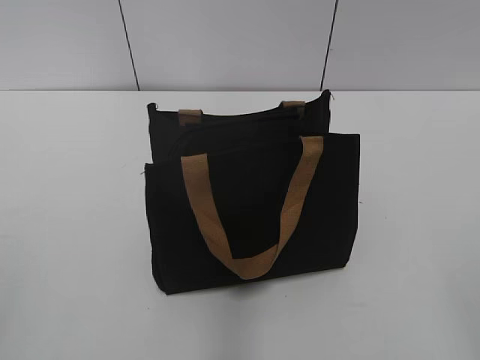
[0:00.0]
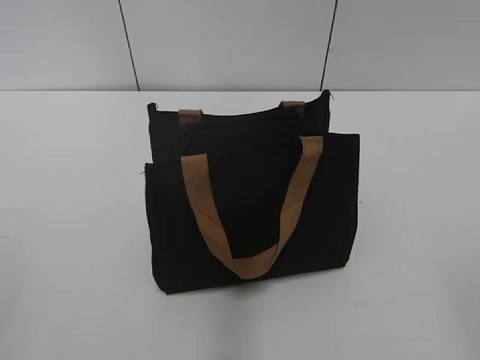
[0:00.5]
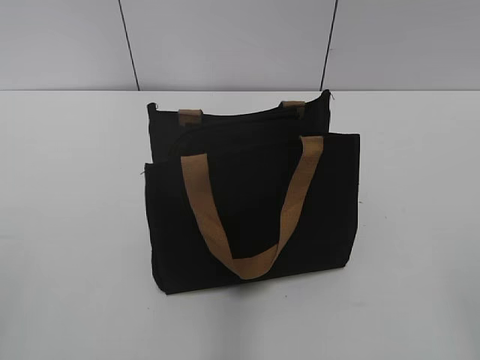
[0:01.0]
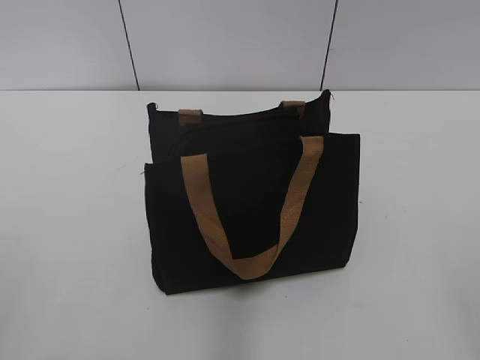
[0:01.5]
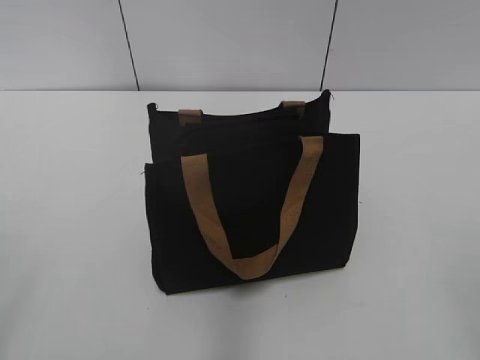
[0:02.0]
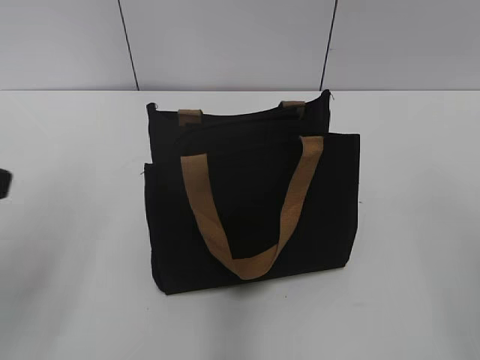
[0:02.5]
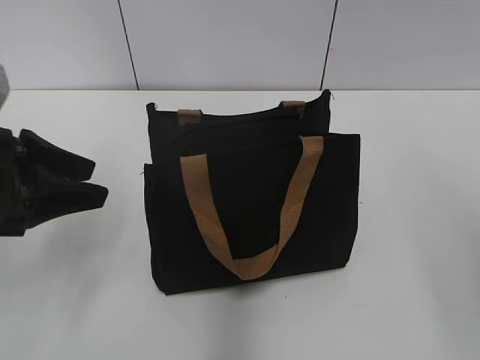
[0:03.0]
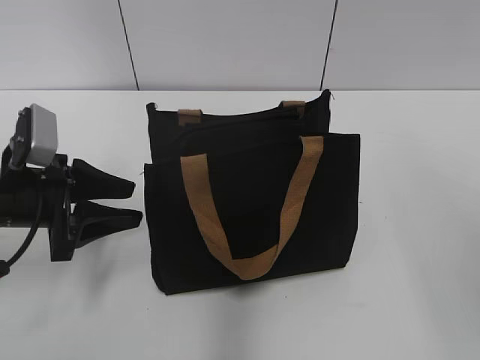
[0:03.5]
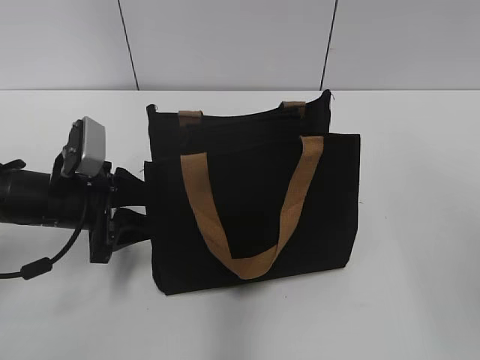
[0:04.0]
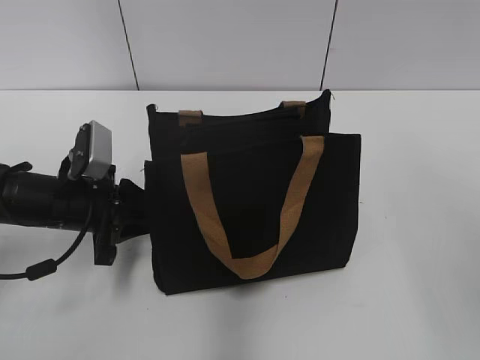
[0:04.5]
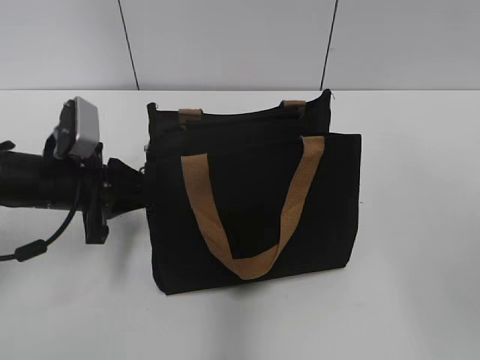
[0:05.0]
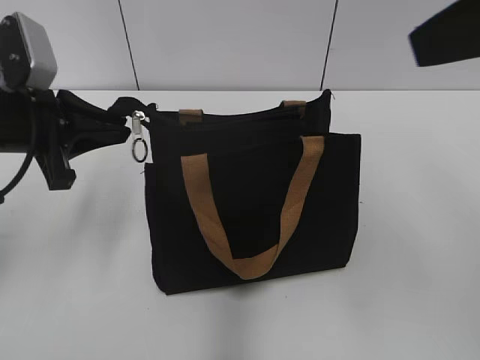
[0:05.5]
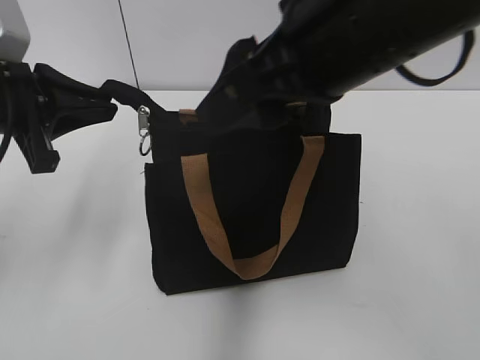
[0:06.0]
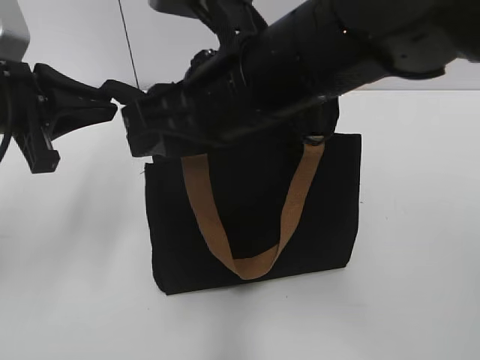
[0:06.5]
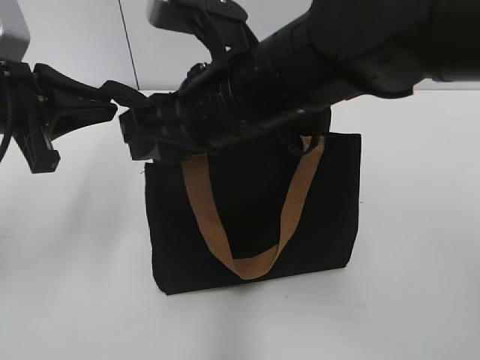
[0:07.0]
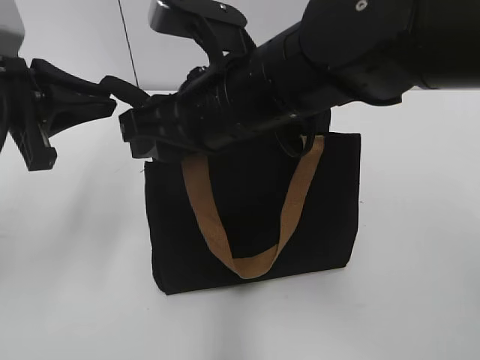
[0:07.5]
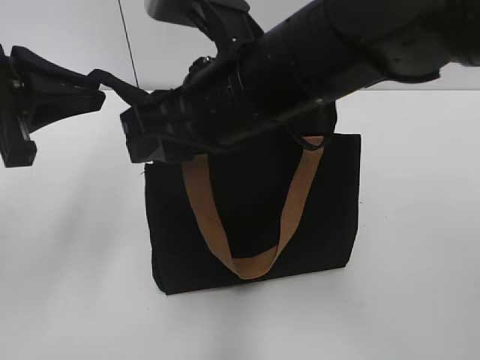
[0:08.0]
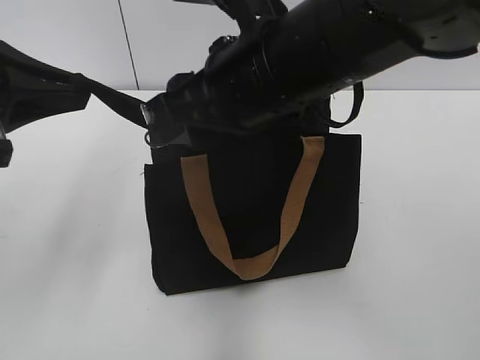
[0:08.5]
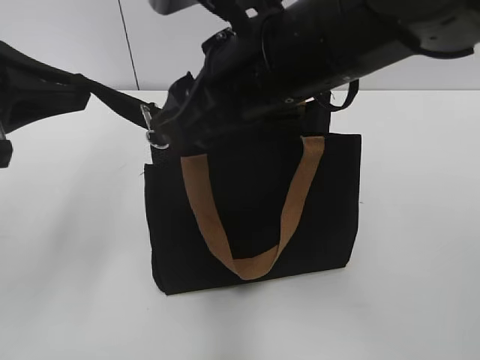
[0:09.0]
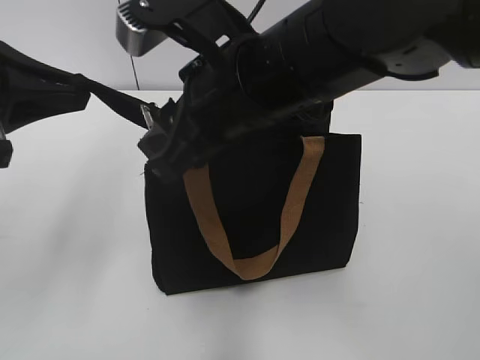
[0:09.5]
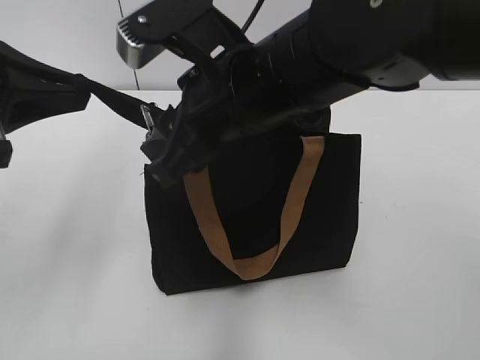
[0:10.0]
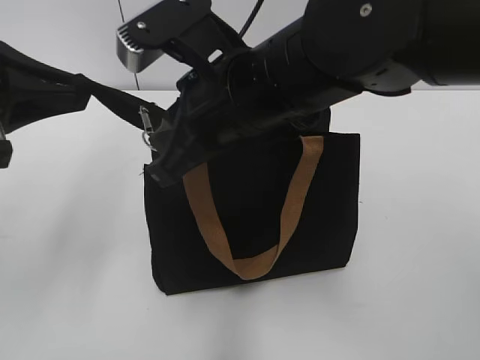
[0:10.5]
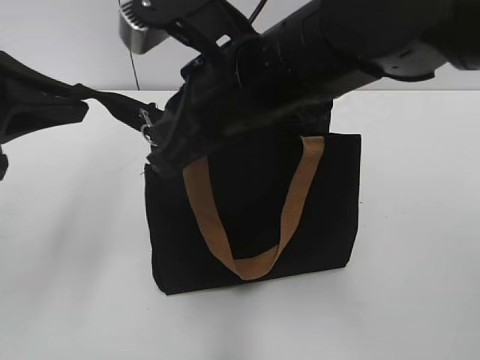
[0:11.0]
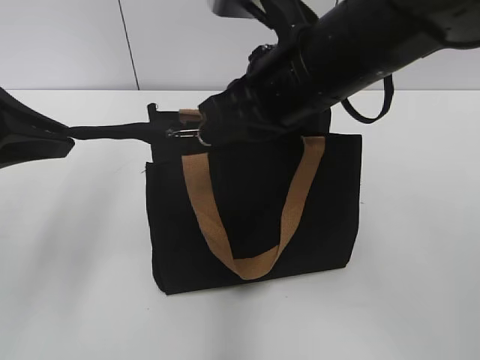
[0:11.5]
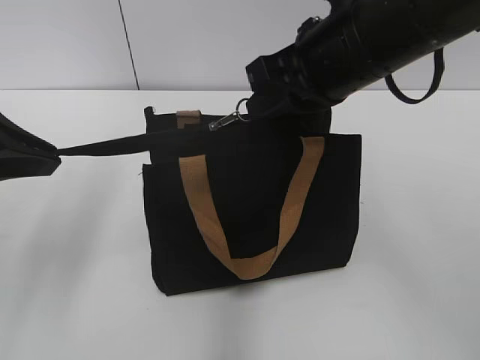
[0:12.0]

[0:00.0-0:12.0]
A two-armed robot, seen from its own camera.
0:02.0 to 0:04.0: The left gripper travels forward and downward by roughly 35 cm.
0:04.0 to 0:06.0: The left gripper travels upward by approximately 15 cm, and closes up; the right gripper shifts about 20 cm to the left and forward.
0:06.0 to 0:08.0: The right gripper moves downward and to the left, approximately 10 cm.
0:10.0 to 0:12.0: The right gripper moves to the right, roughly 10 cm, and closes.

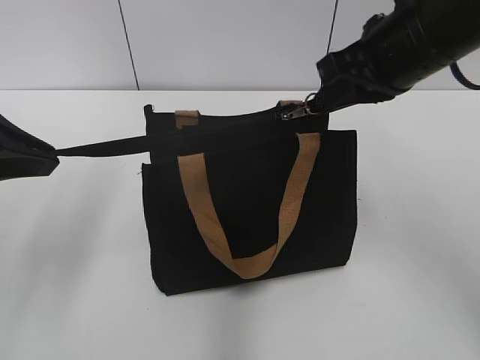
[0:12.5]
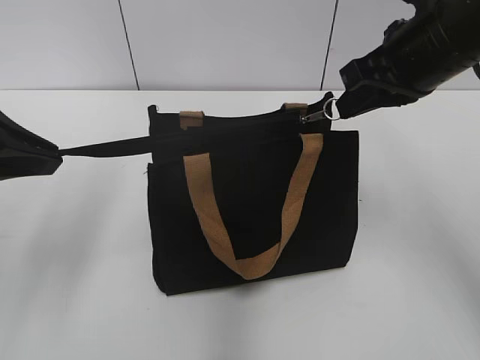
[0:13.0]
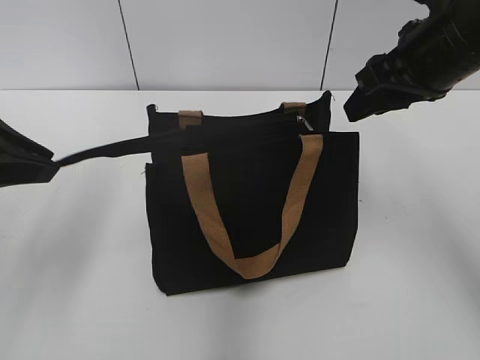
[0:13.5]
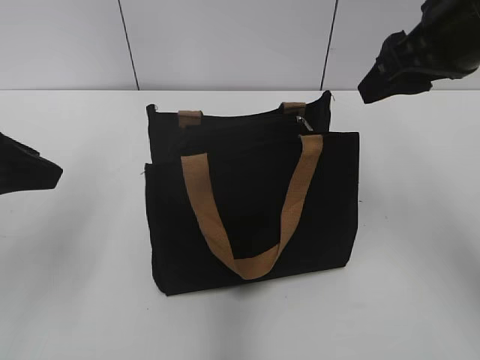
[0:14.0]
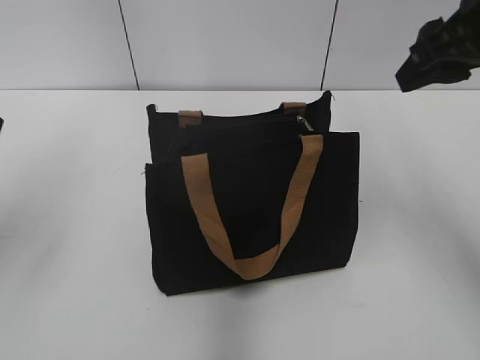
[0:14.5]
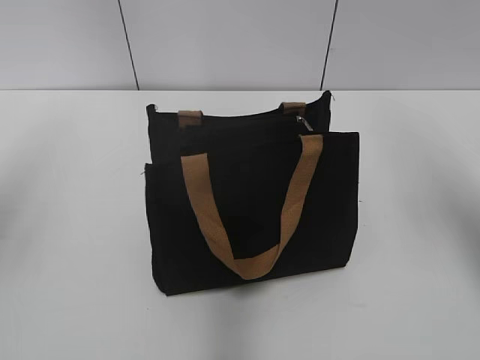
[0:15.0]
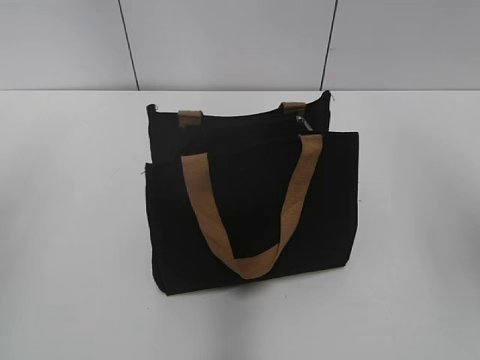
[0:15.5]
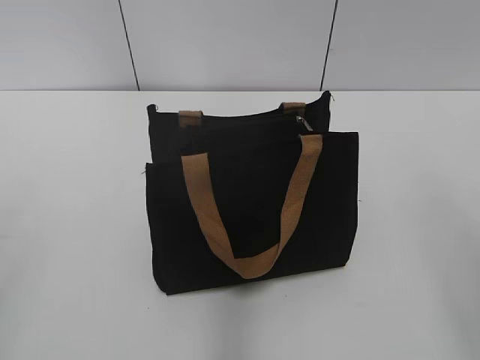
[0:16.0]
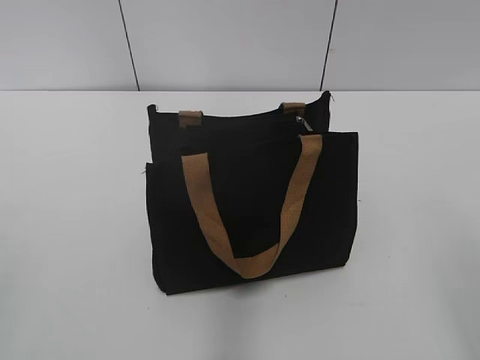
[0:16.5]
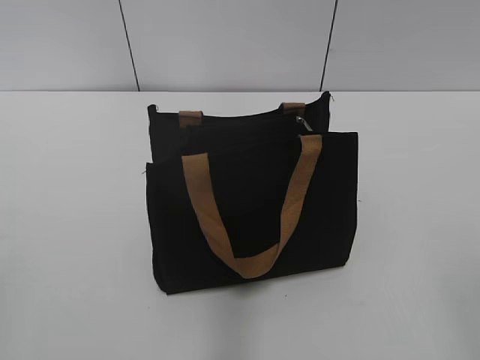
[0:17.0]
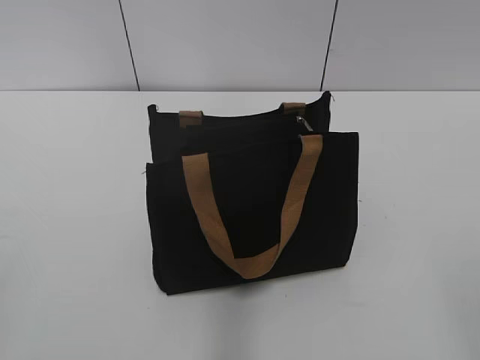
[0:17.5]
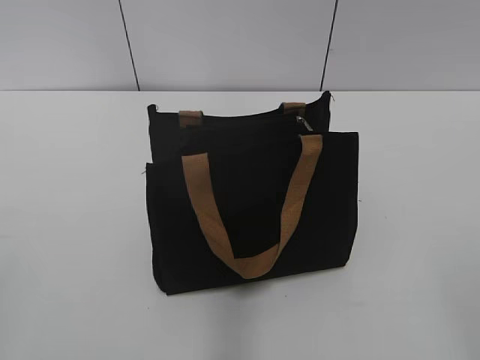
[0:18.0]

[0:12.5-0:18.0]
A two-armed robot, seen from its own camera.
0:12.5 to 0:14.5: The left gripper opens up. Meanwhile the right gripper moves to the right, about 5 cm, and opens up.
0:14.5 to 0:16.0: The right gripper shifts about 15 cm backward.

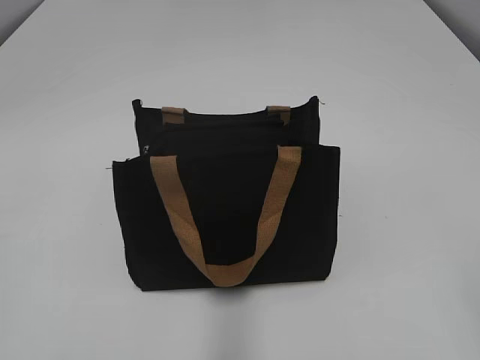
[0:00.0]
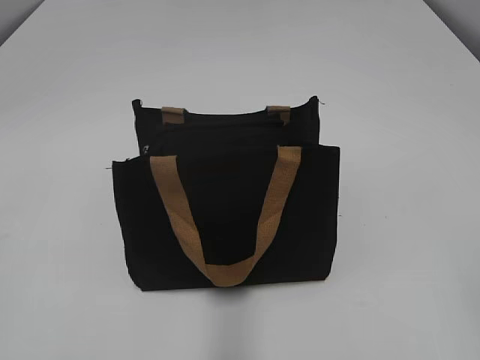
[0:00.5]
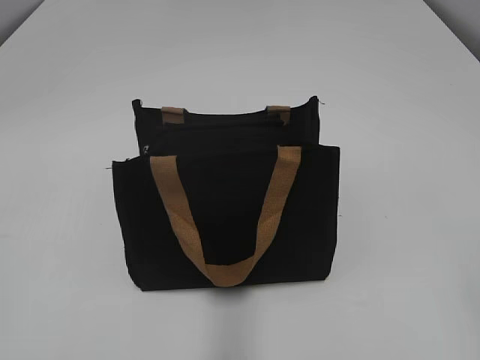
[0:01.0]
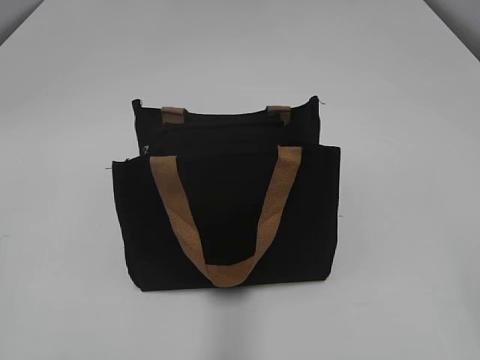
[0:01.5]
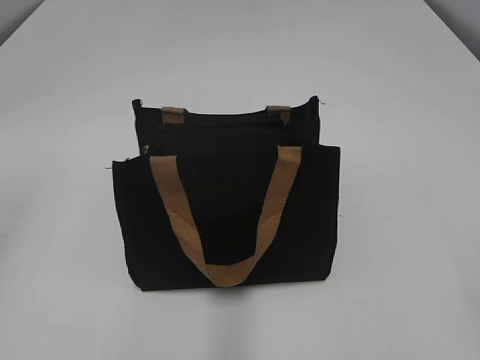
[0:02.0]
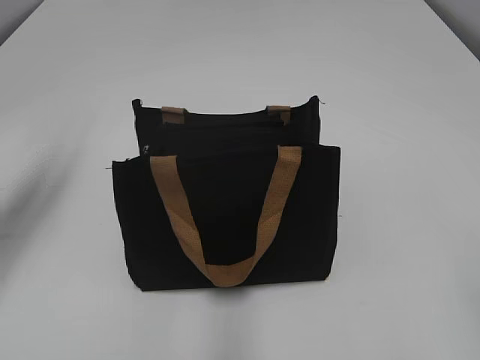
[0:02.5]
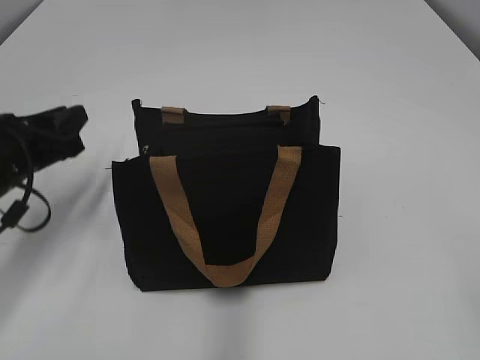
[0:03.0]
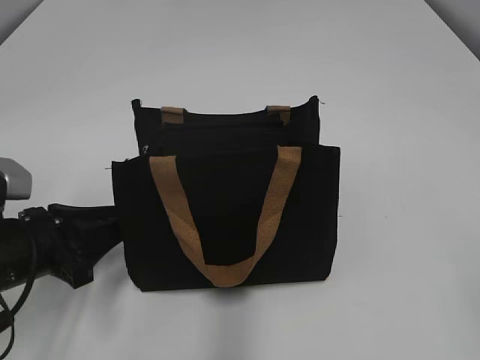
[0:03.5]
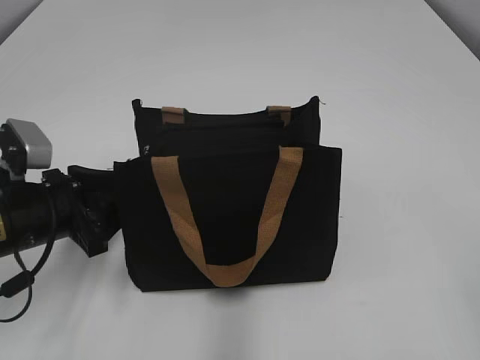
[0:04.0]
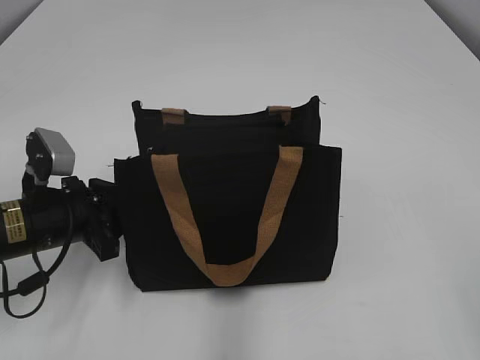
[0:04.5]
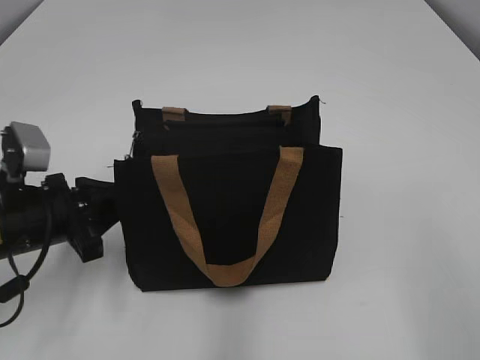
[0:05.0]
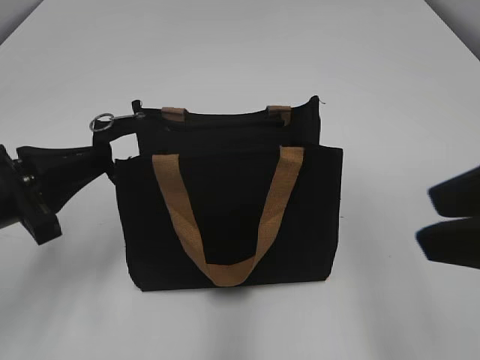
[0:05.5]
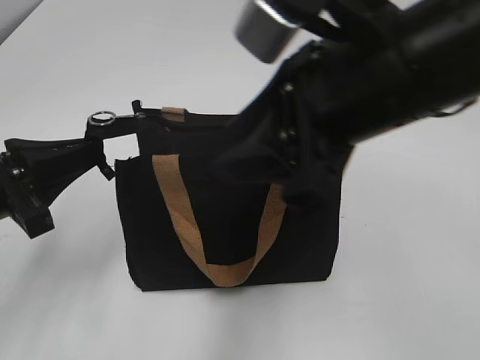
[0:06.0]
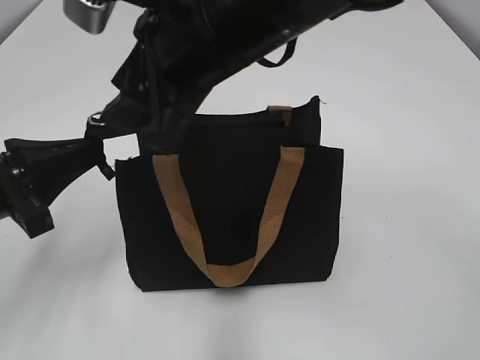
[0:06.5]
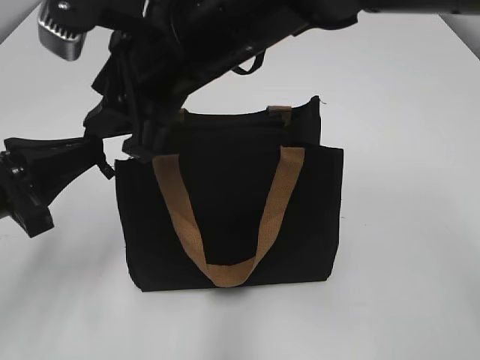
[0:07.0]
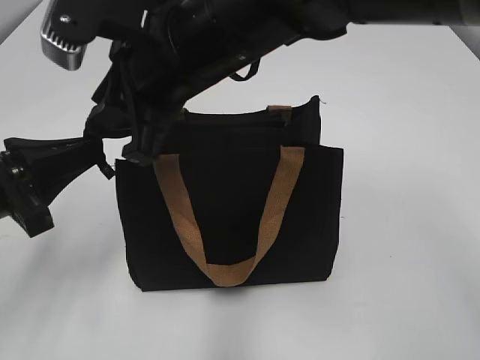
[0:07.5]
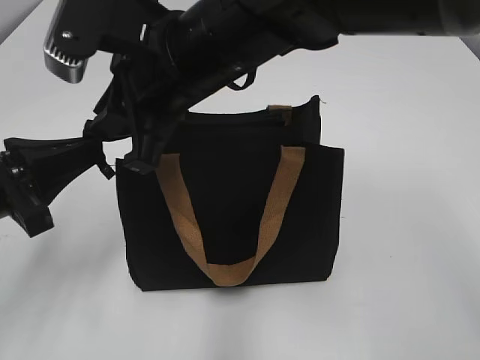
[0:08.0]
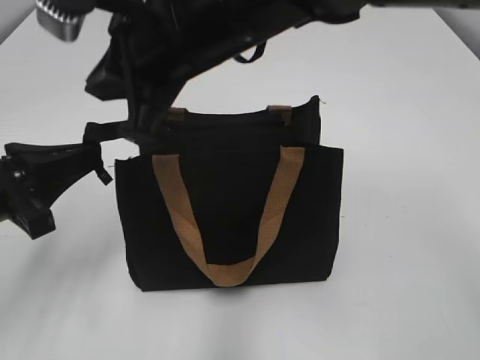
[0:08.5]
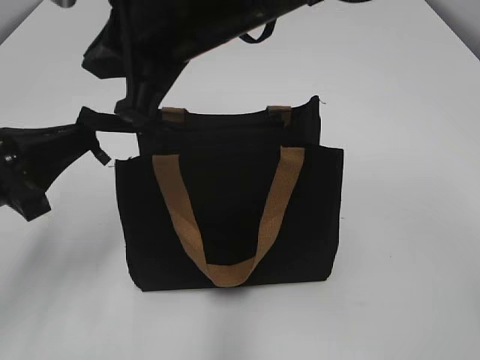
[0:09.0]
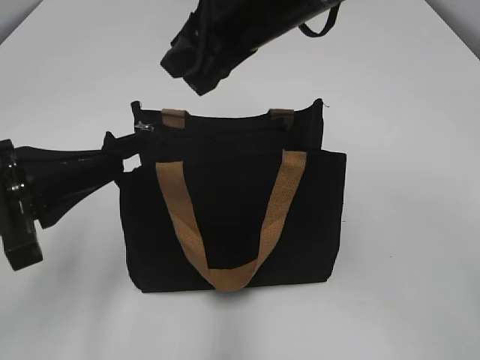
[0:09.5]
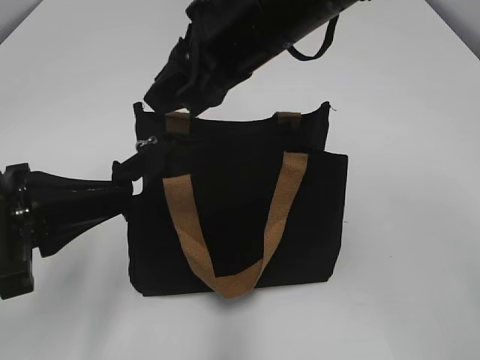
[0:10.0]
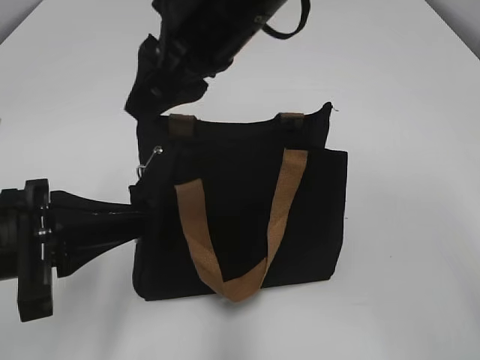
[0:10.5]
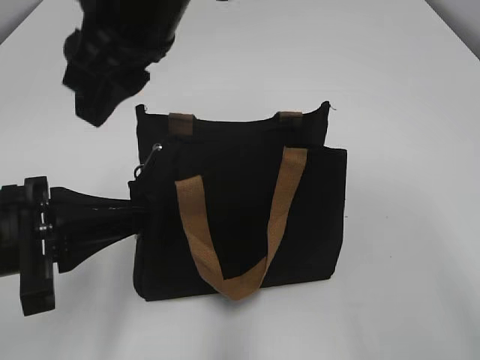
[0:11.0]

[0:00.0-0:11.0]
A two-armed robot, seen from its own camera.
0:02.0 to 0:03.5: The left gripper moves downward and forward, roughly 25 cm.
0:03.5 to 0:05.5: The right gripper travels forward and to the left by approximately 15 cm, while the left gripper shifts some 5 cm upward, and closes its fingers.
0:05.5 to 0:07.5: The right gripper heads to the left and forward, covering some 30 cm.
0:07.5 to 0:09.0: The grippers make only small movements.
0:09.0 to 0:11.0: The right gripper opens its fingers.
